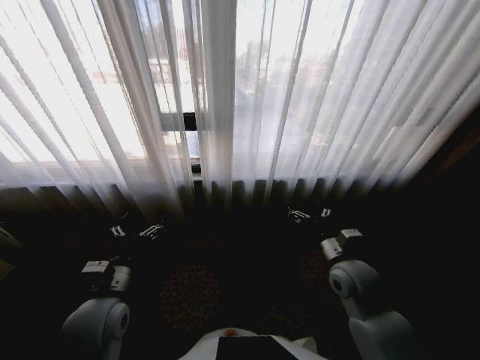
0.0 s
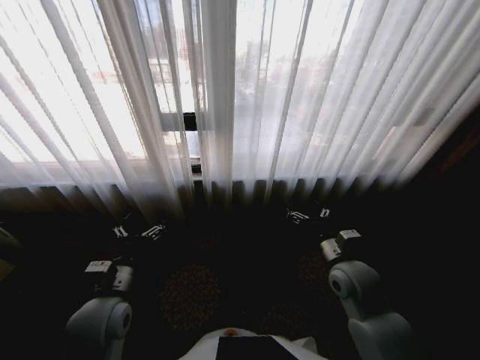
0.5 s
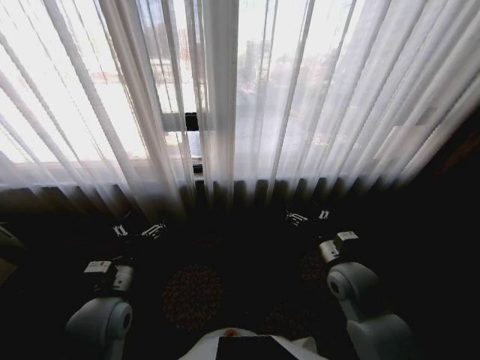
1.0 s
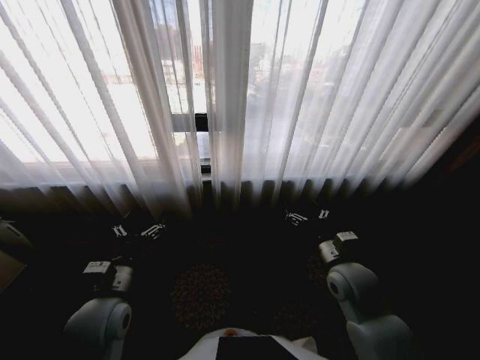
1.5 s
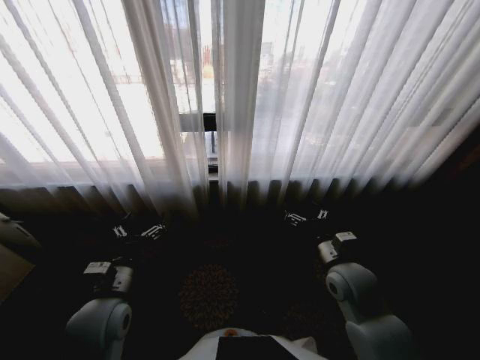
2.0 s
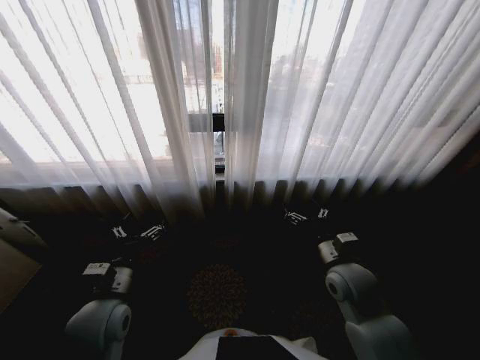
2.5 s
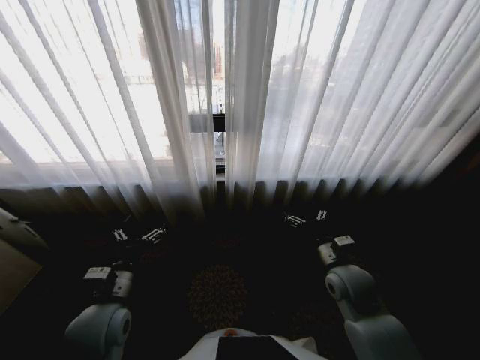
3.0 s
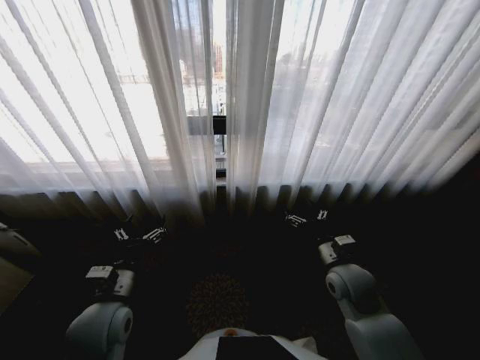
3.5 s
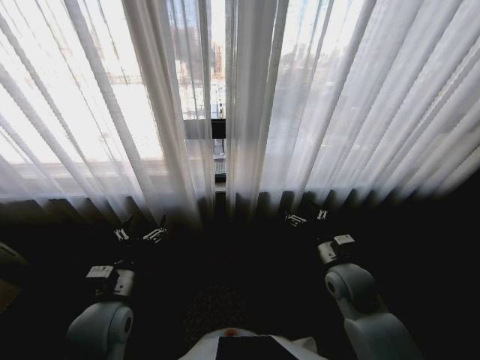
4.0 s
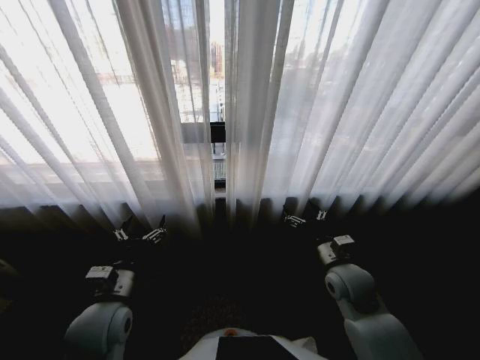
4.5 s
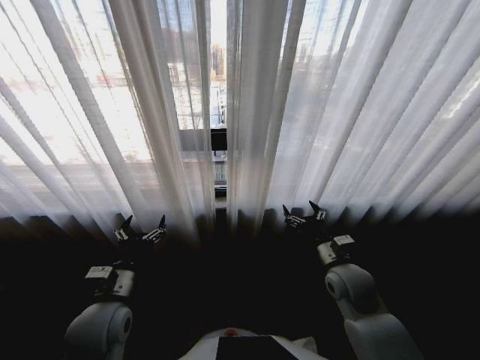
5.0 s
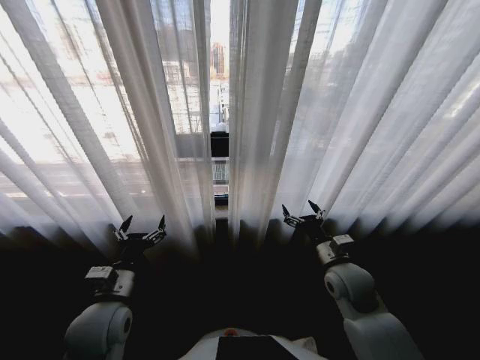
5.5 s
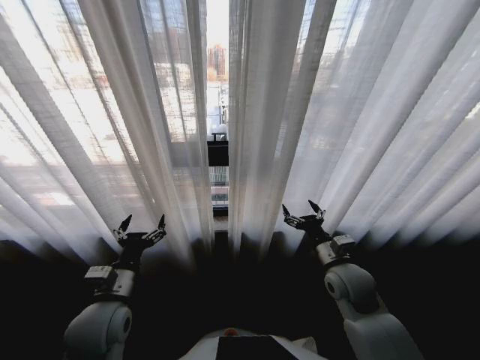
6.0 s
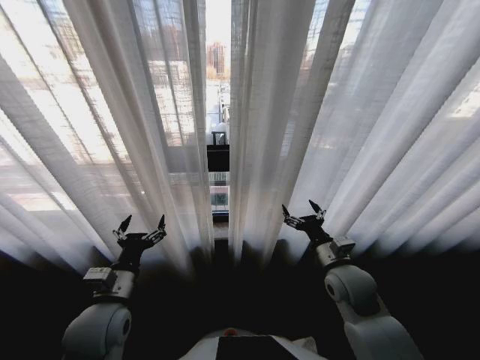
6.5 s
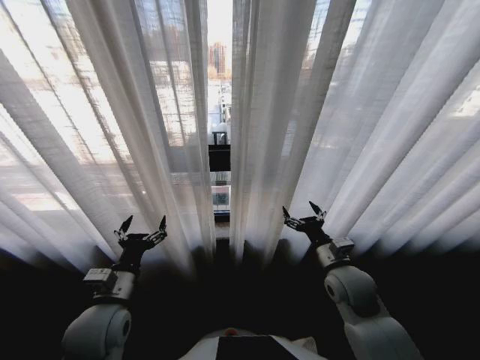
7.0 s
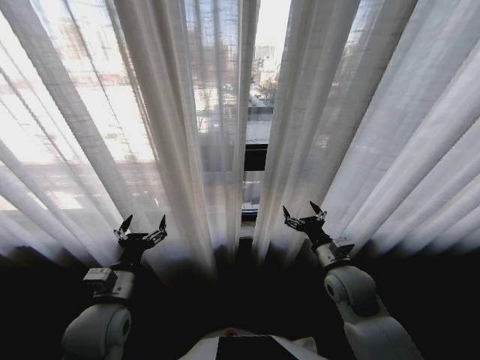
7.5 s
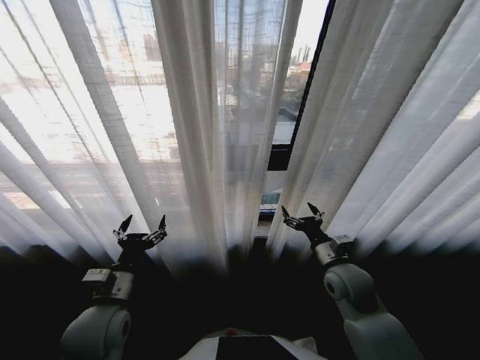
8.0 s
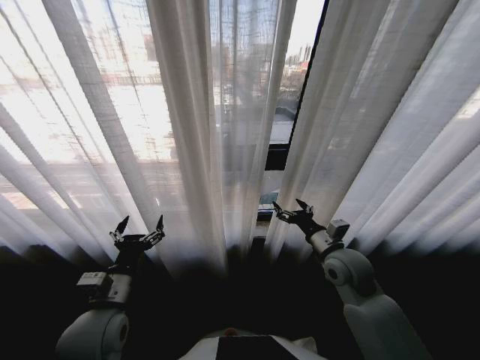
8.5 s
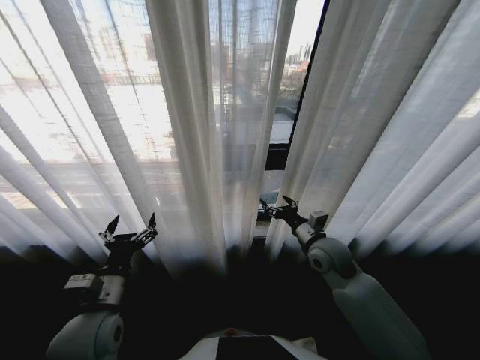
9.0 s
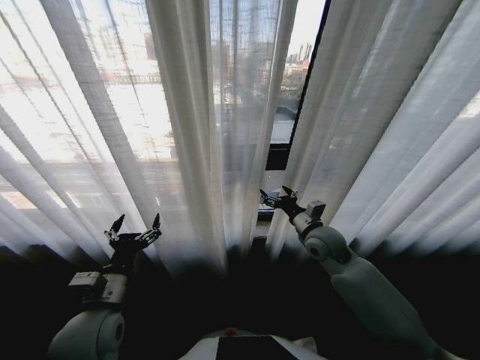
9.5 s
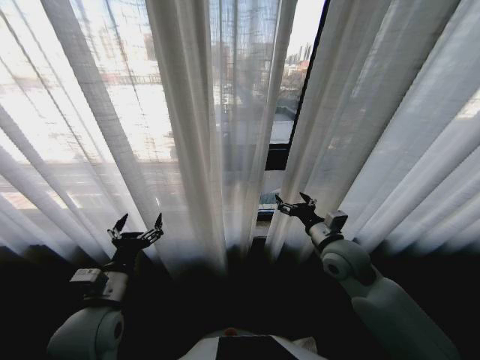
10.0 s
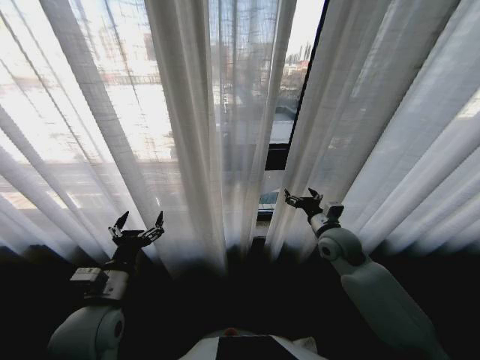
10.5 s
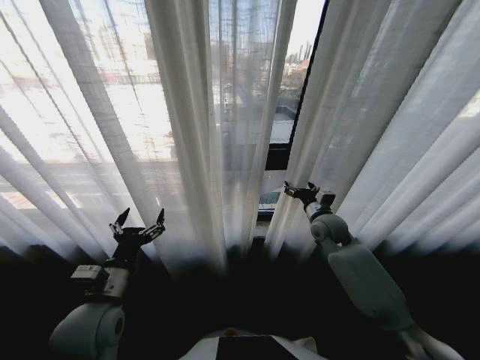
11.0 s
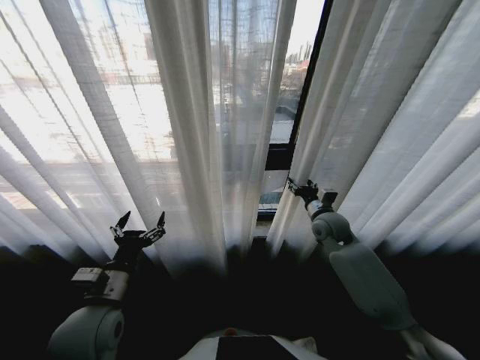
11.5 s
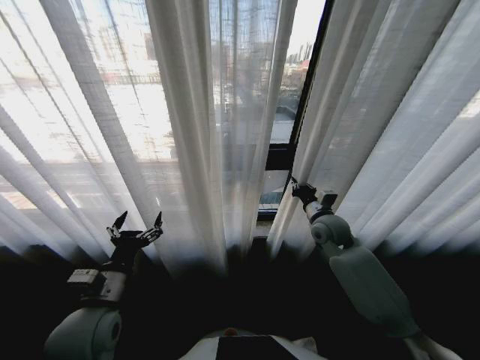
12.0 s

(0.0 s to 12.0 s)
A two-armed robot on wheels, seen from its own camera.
Task of the whole recording: Open the curtains by pulling them apart, changing their state from closed to fully open.
10.0 s - 12.0 s: The right gripper shifts some 10 cm forward, and closes its fingers.

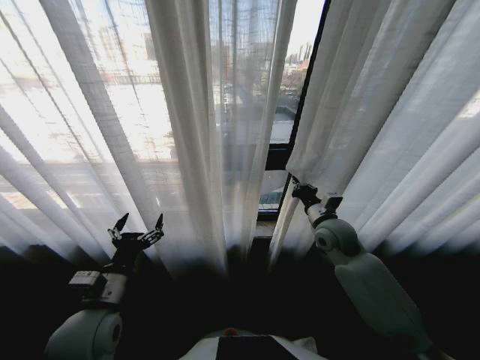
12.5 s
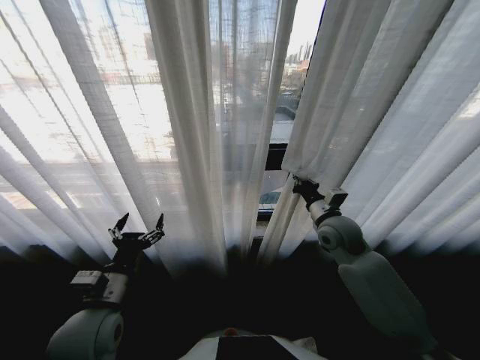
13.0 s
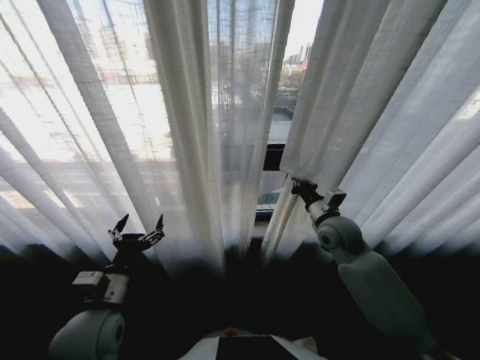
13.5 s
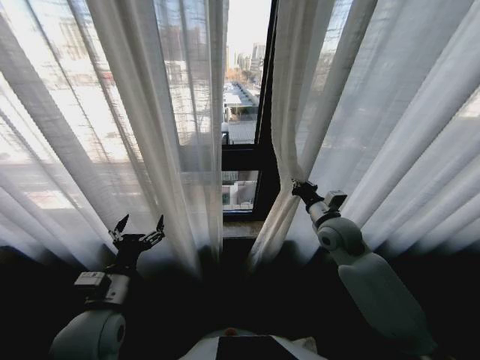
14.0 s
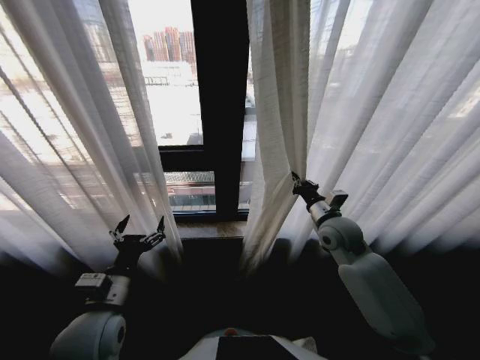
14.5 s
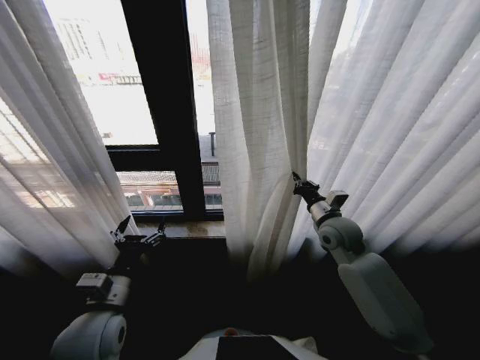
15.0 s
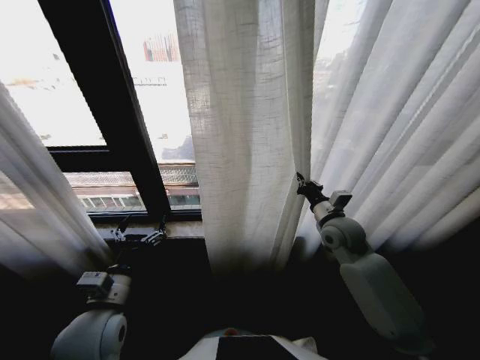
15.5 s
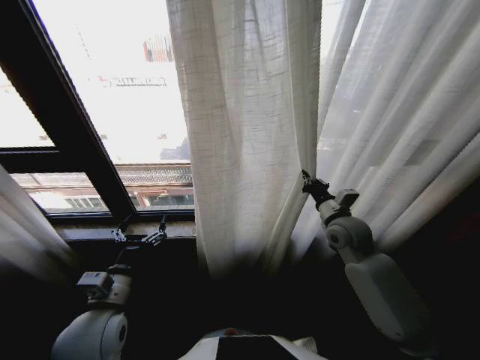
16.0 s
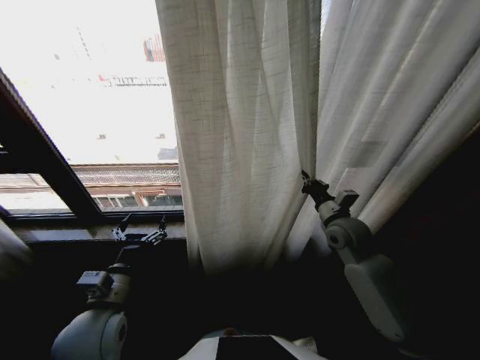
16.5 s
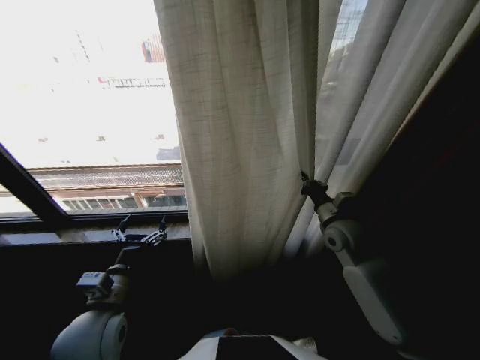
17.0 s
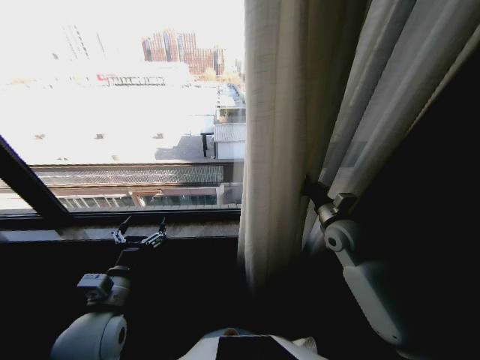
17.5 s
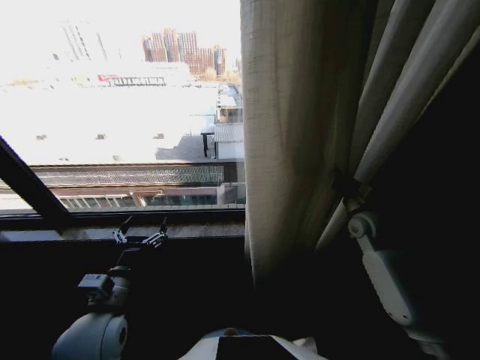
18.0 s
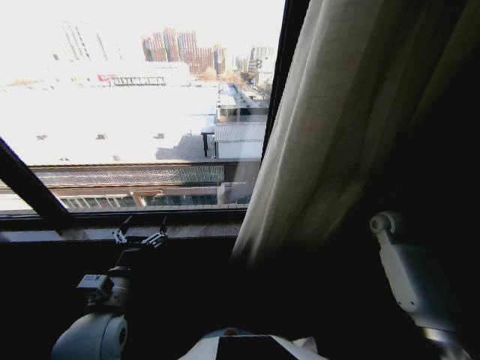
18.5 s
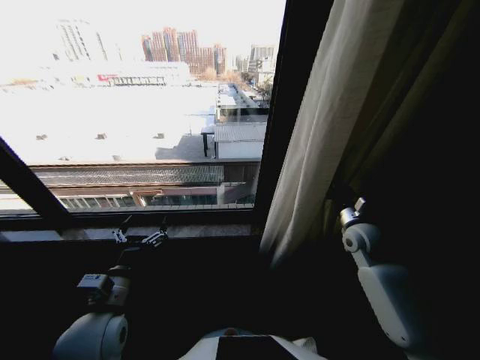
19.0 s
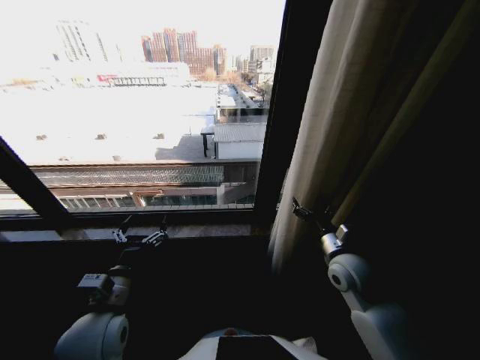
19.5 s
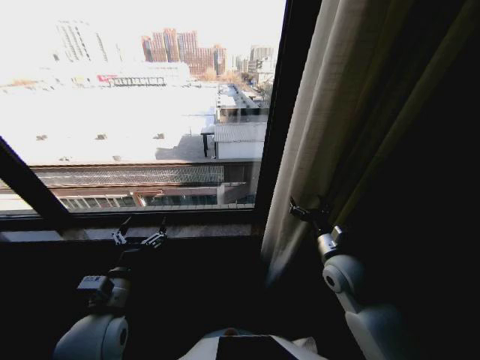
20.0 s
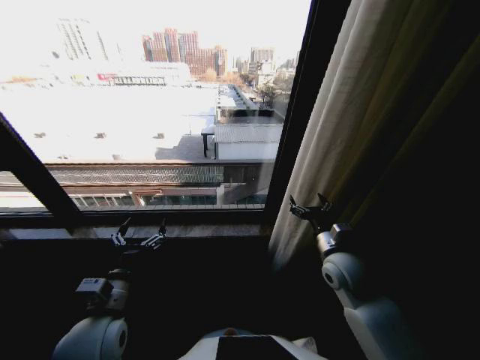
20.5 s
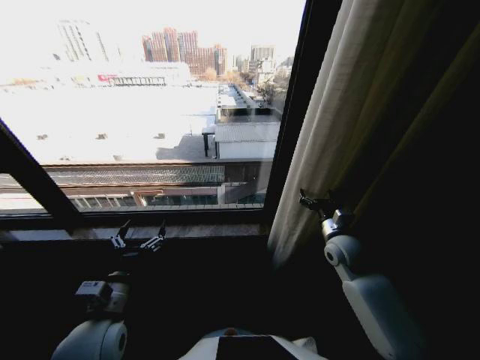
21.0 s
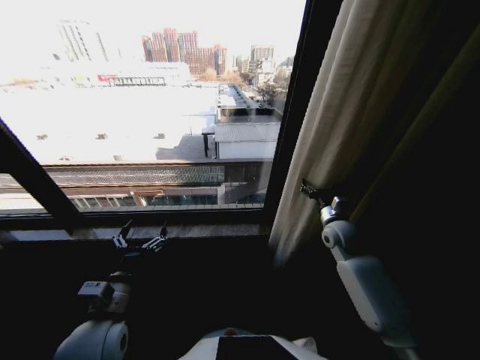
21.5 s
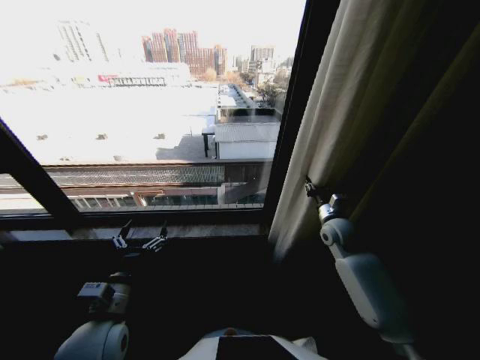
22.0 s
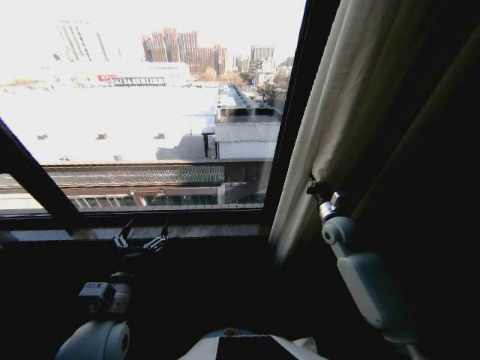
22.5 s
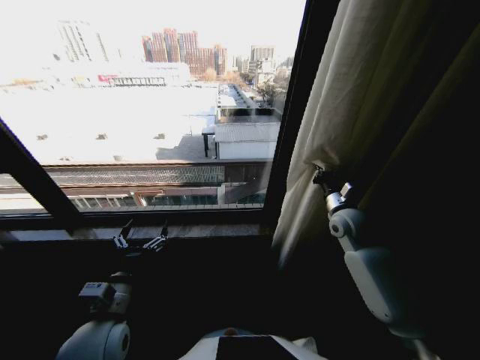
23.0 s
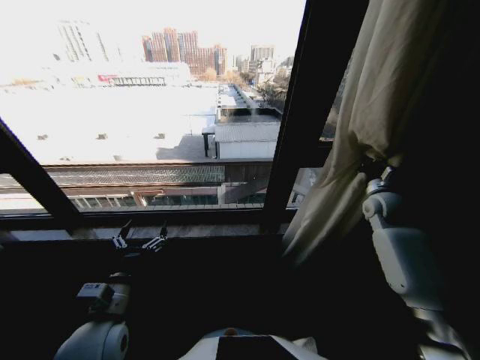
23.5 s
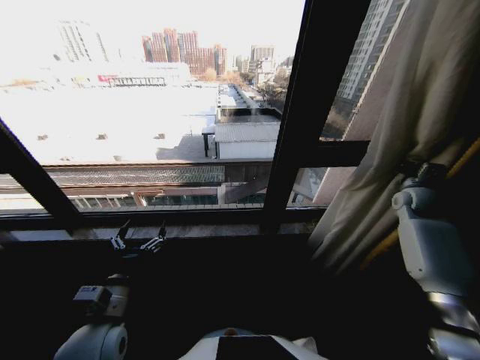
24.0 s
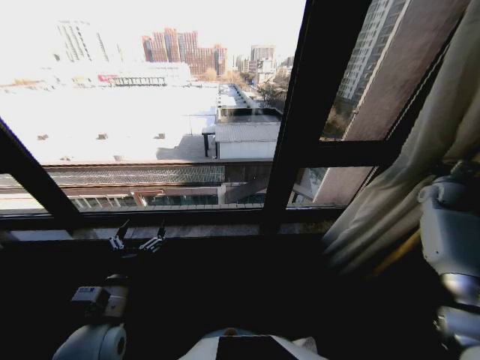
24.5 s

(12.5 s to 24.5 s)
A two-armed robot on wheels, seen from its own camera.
Task of the whole recording: Open the curtains by pulling them apart, changing their state from closed to fully open.
16.5 s - 18.5 s: The right gripper heads to the right, covering approximately 20 cm.
18.5 s - 20.5 s: The right gripper travels to the left and backward by roughly 25 cm, and opens up.
20.5 s - 22.5 s: The right gripper is displaced forward and to the right by roughly 10 cm, and closes.
22.5 s - 24.5 s: The right gripper travels to the right by approximately 30 cm.

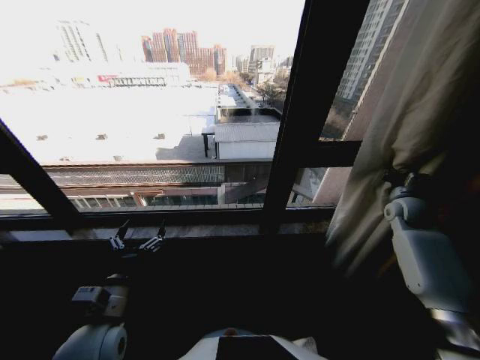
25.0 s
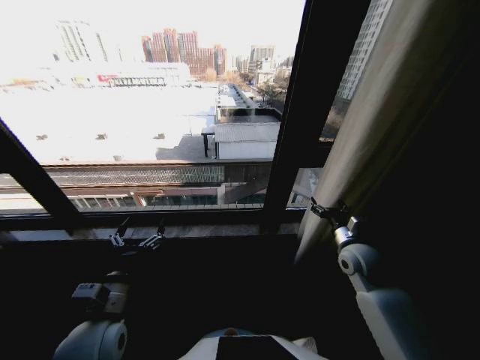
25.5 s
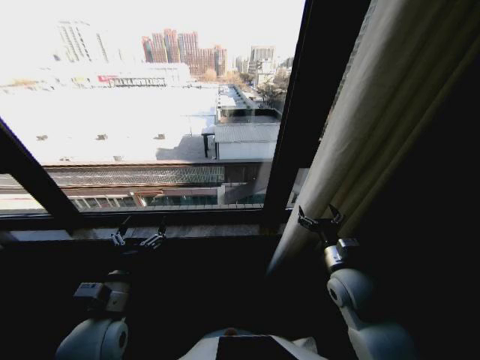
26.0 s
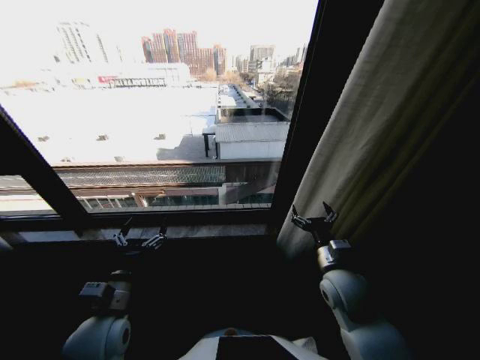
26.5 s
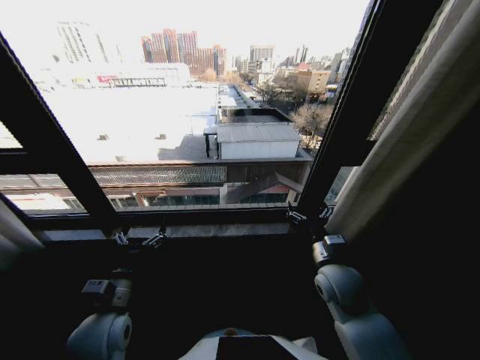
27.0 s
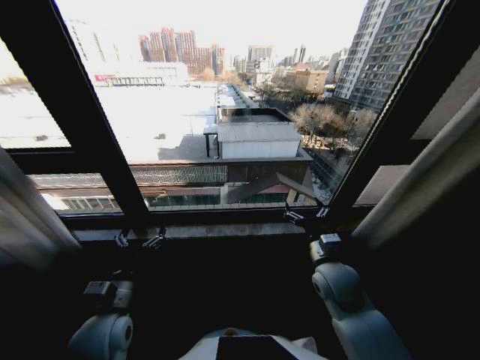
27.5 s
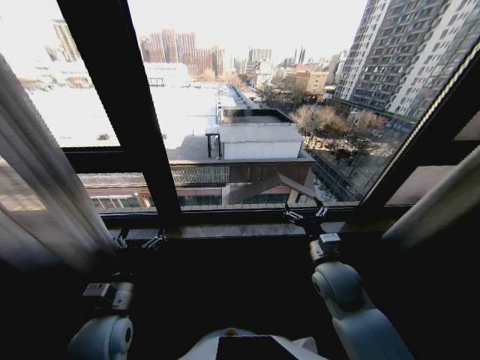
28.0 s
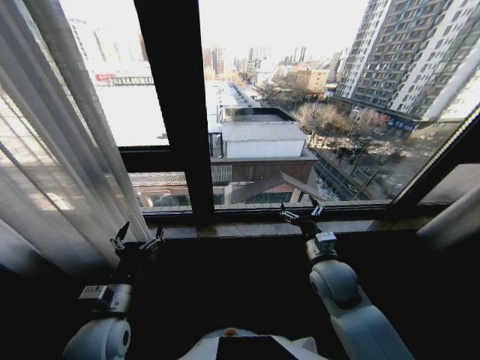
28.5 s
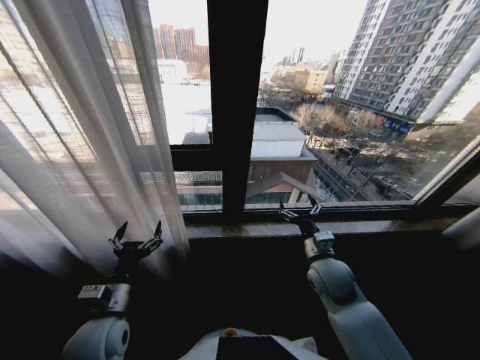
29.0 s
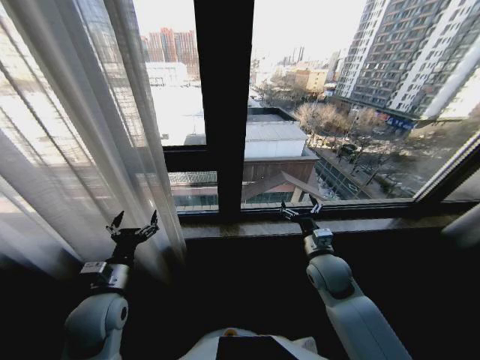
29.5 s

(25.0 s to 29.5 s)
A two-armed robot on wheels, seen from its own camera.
Task of the whole recording: Open the curtains by pulling them apart, changing their state from closed to fully open.
25.0 s - 27.0 s: The right gripper travels to the left and backward by some 35 cm, and opens up.
